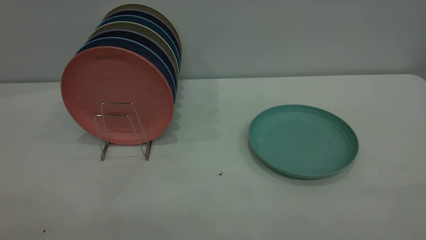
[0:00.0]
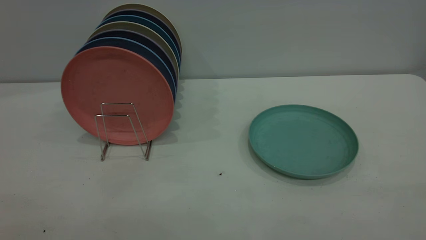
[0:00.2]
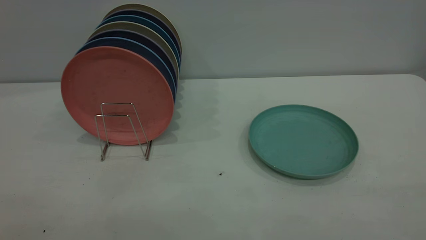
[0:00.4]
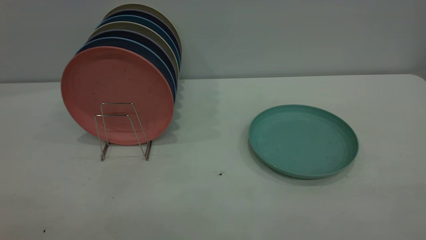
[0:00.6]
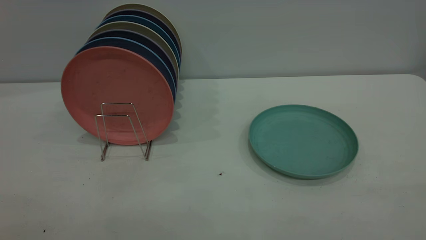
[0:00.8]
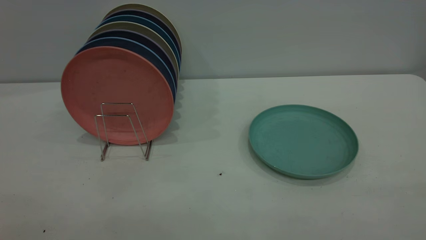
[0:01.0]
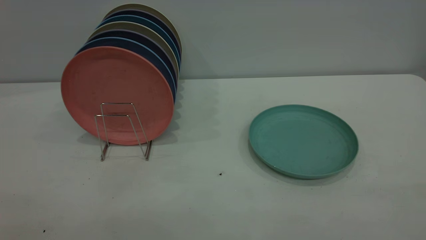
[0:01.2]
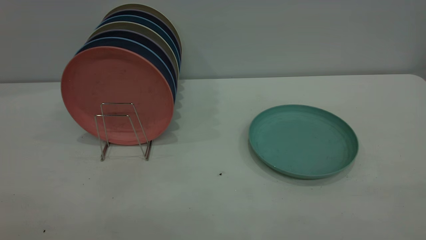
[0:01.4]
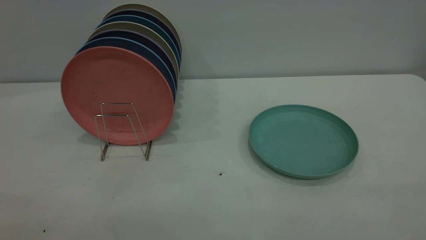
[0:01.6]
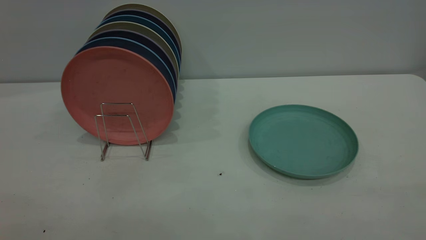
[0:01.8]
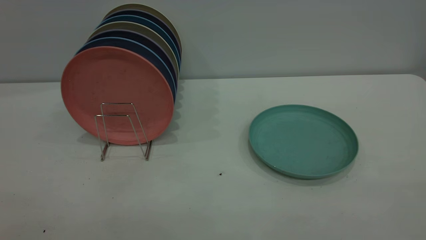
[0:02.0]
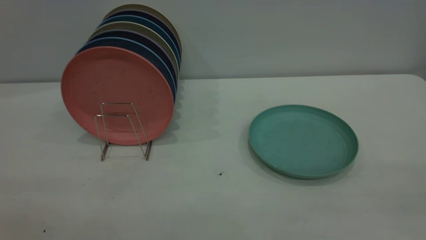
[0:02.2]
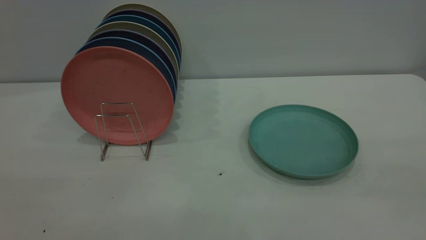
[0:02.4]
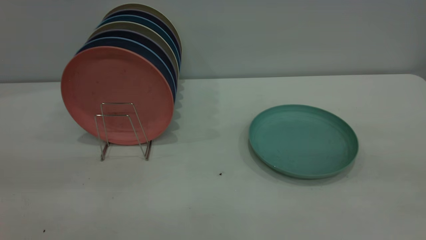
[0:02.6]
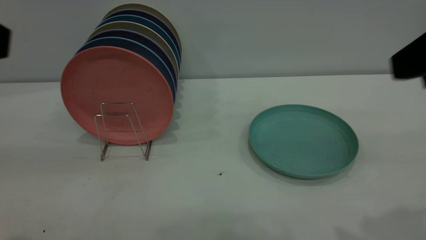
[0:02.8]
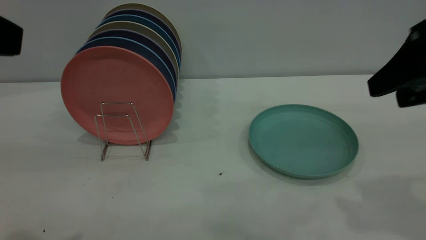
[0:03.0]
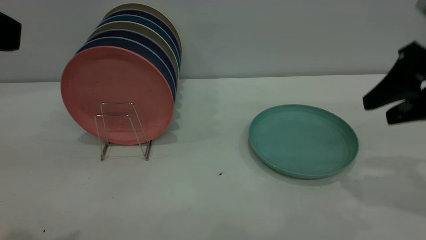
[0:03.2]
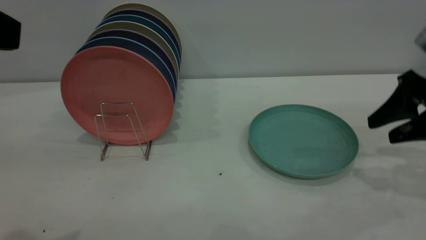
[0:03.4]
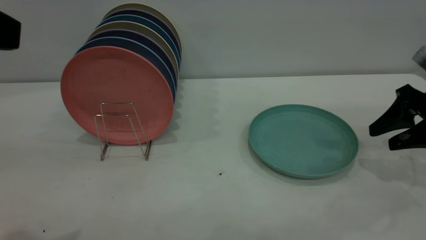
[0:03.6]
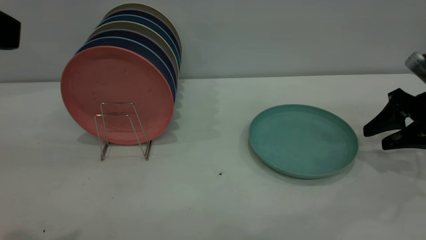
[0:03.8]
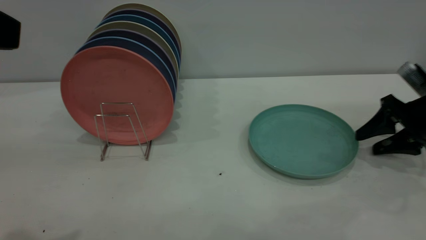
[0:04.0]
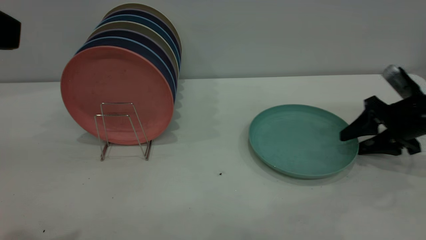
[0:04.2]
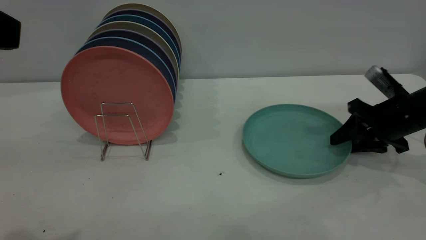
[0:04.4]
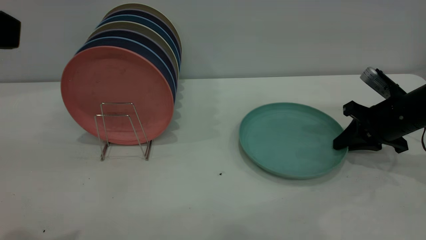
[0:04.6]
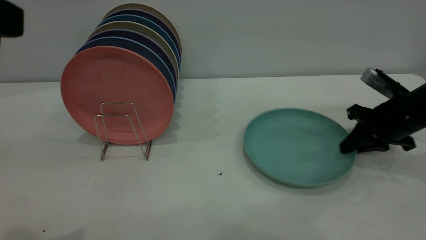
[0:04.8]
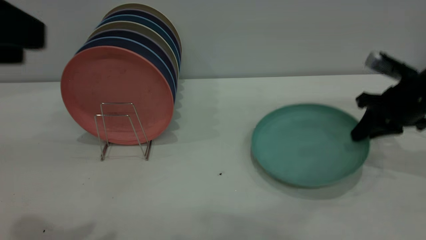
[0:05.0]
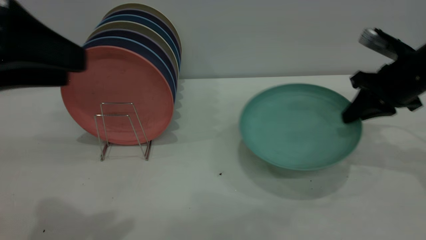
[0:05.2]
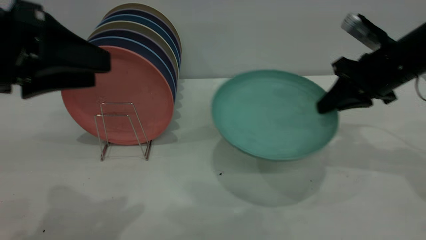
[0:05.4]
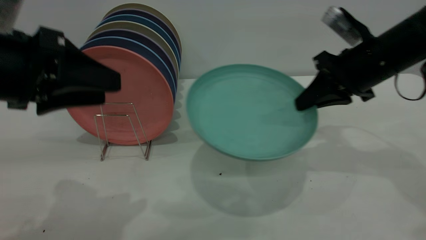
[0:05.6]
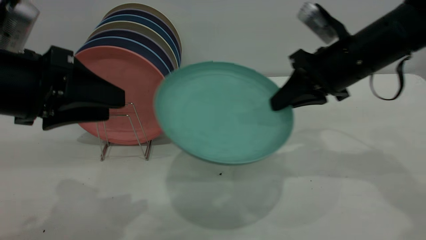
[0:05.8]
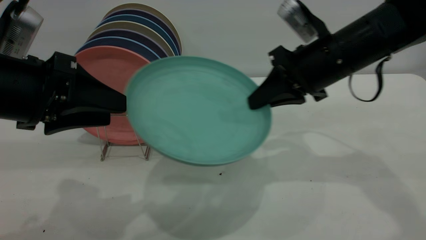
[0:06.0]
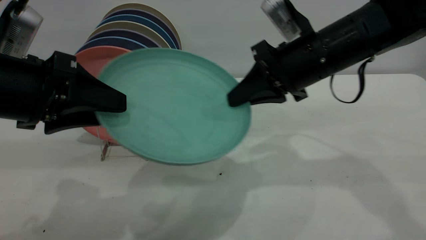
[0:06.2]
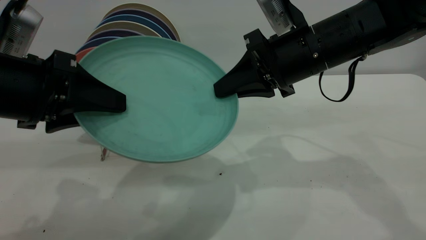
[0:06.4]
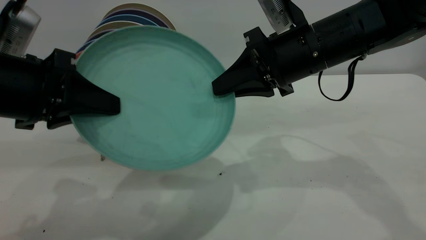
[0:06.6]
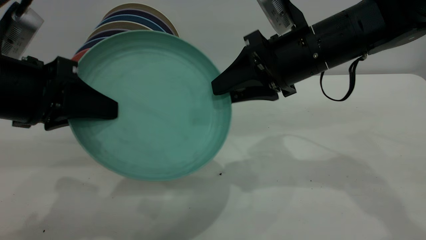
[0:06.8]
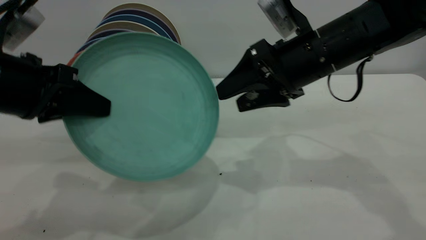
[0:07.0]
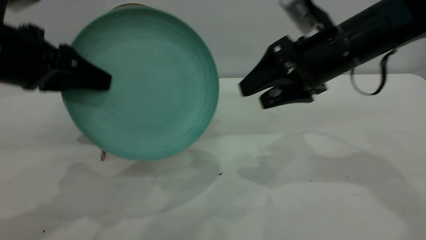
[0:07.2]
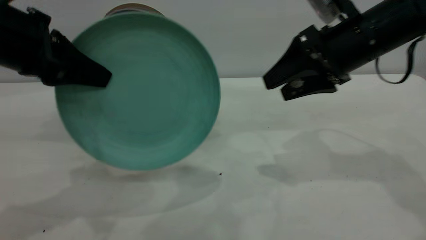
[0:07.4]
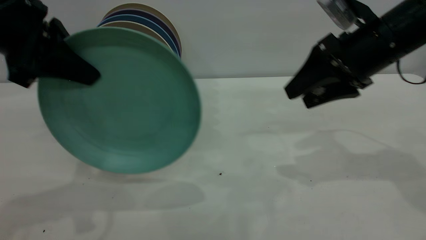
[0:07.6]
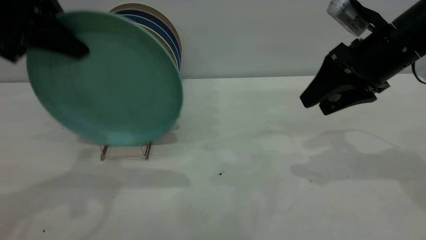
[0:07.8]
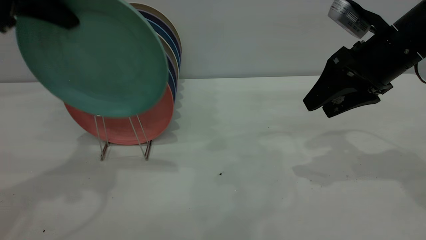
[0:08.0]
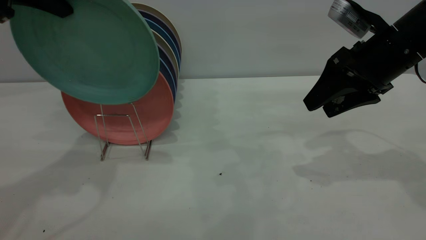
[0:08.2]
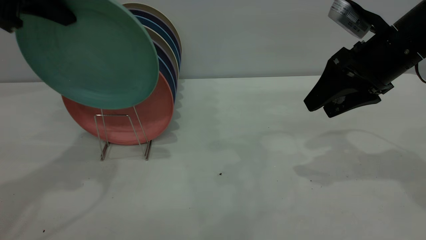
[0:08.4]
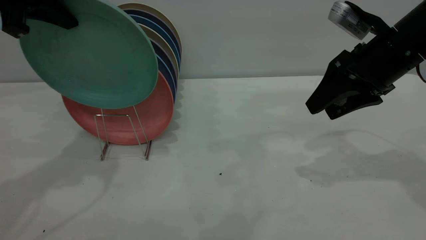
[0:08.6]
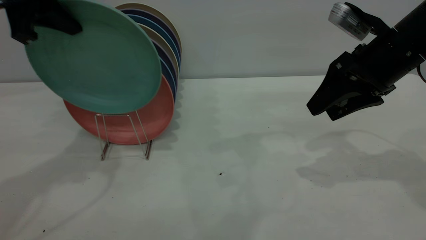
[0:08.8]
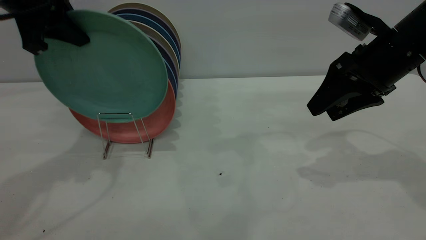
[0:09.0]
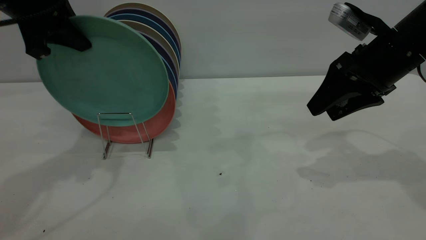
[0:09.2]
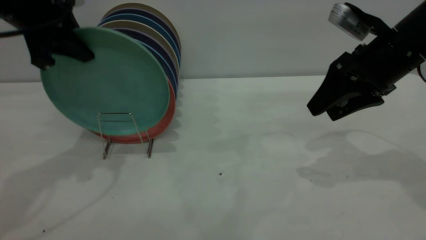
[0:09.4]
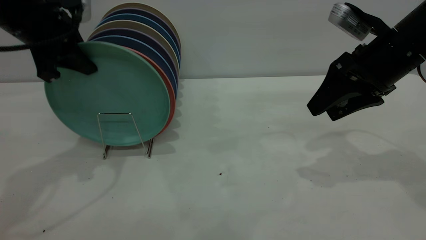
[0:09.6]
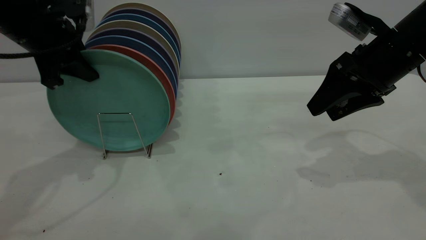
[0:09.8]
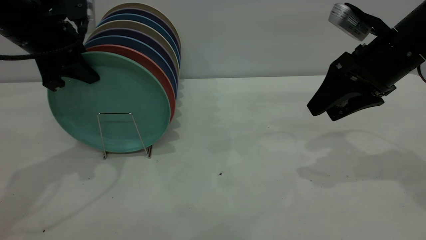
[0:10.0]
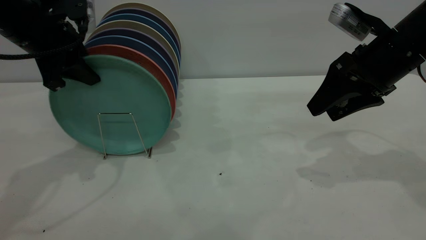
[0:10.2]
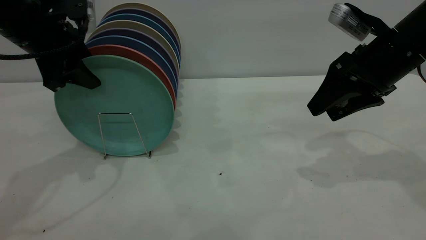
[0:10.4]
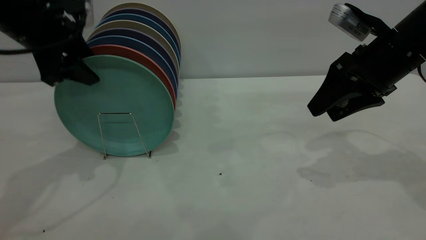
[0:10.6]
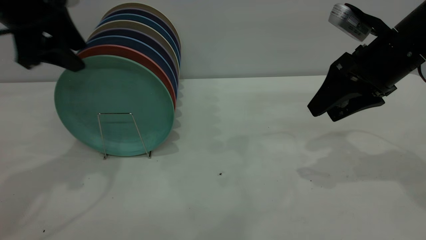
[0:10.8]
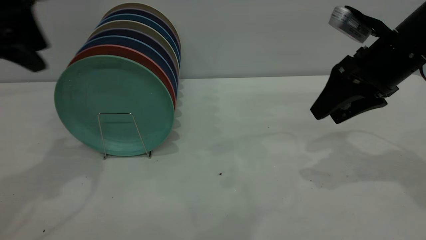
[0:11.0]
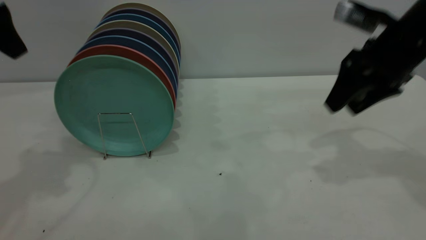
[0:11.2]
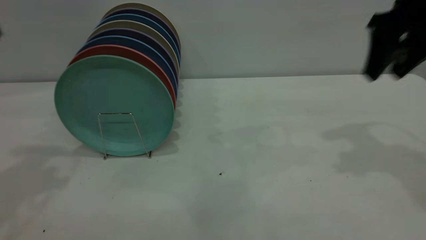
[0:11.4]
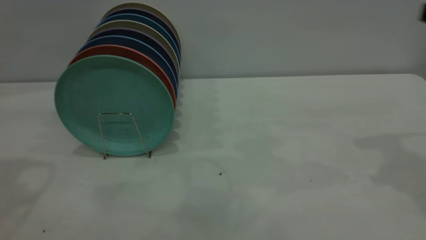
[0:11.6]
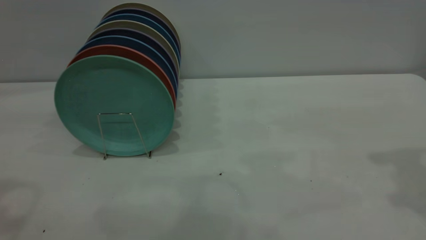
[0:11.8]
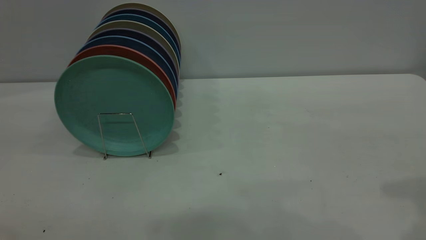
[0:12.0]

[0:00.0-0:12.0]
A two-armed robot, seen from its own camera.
Task of the whole recording: the right gripper grasp the green plate, the right gripper pass the green plate to the left gripper, and the left gripper place the green plate on the plate rack.
Step, 0:00.0 to 0:05.0: Pick up the plate with the right gripper.
Step, 0:05.2 to 0:06.8: Pass the plate from the right gripper to the left gripper.
Step, 0:07.2 to 0:10.8: Place the plate on the shelf.
0:00.0 to 0:01.6: Both grippers stay put.
0:01.6 to 0:03.0: The left gripper shifts roughly 20 cm forward. The right gripper shifts about 30 cm forward.
0:03.0 to 0:04.4: The right gripper shifts about 20 cm downward and forward, and closes its fingers.
0:04.4 to 0:06.0: The left gripper heads downward and forward, covering roughly 15 cm. The right gripper heads to the left and upward, covering roughly 20 cm, and closes.
0:06.0 to 0:07.6: The left gripper moves upward and forward, roughly 10 cm, and closes its fingers. The right gripper goes roughly 5 cm to the right, and opens its fingers.
0:07.6 to 0:09.0: The left gripper heads forward, covering some 5 cm.
0:09.0 to 0:10.4: The left gripper goes about 5 cm downward, and opens up.
0:10.4 to 0:12.0: The left gripper travels backward and upward by approximately 30 cm, while the right gripper moves backward, upward and to the right, approximately 20 cm.
